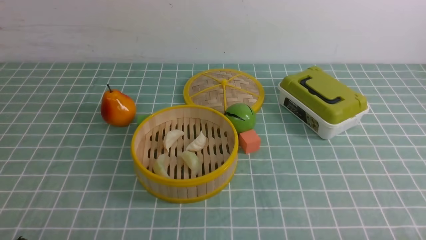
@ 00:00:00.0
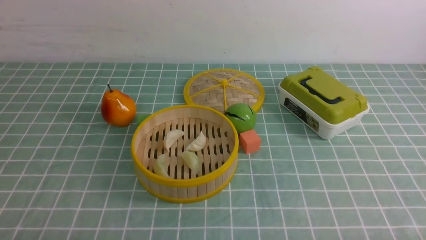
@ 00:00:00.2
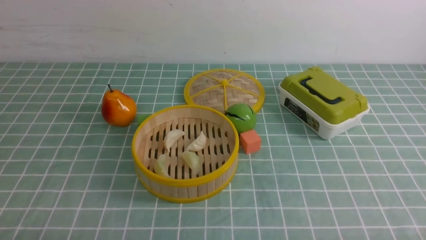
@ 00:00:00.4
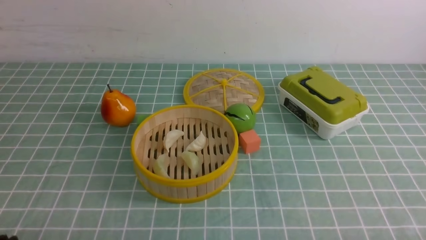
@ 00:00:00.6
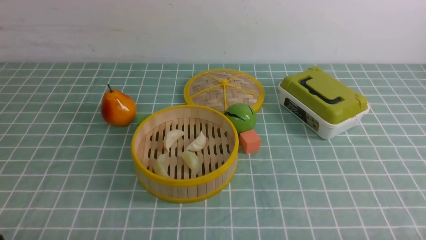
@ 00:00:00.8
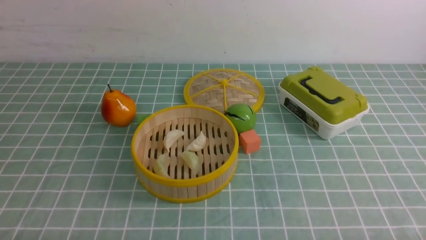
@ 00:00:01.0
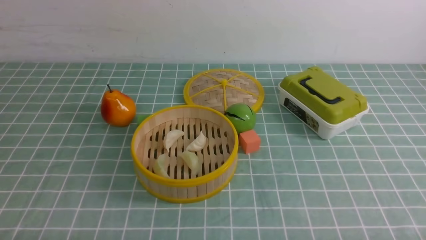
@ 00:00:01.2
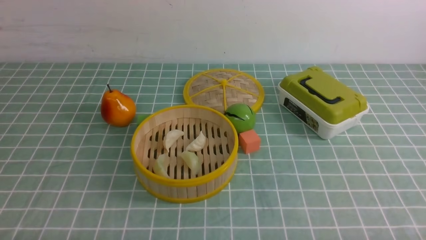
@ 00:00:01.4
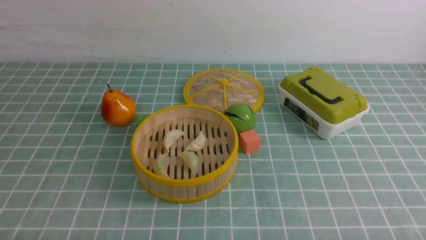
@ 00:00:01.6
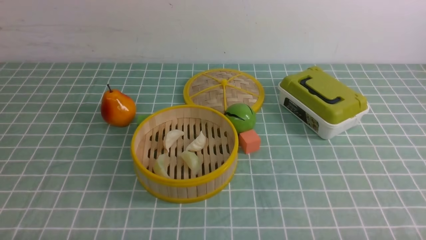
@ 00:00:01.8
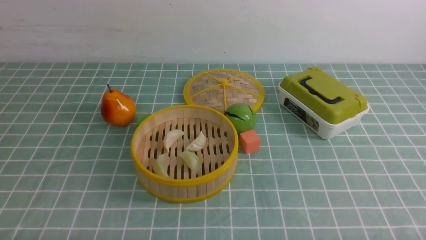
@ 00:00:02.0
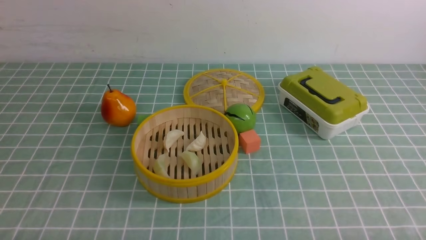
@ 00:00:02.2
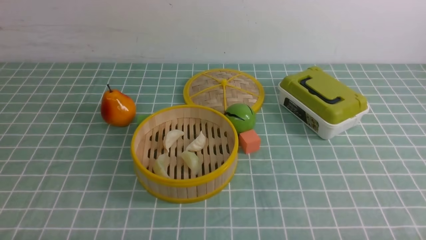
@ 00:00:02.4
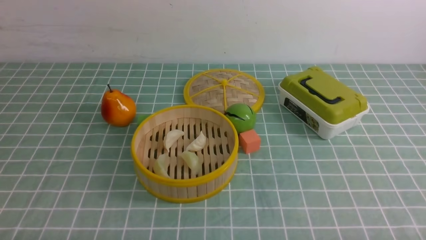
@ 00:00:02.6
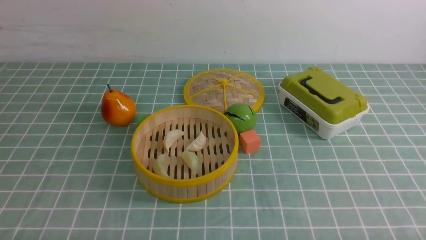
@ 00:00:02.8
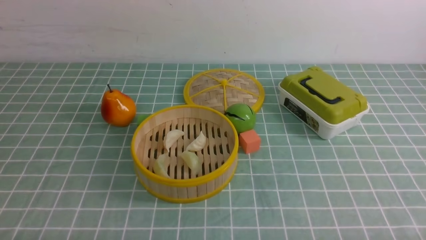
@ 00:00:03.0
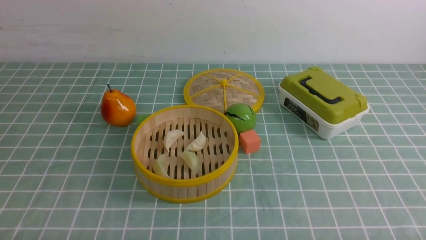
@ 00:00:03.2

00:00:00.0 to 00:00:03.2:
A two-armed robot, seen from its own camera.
Task of the whole recording: put the dumplings into the steamer on the table with the blue tablecloth.
00:00:01.6 to 00:00:03.2: Both grippers stay put.
